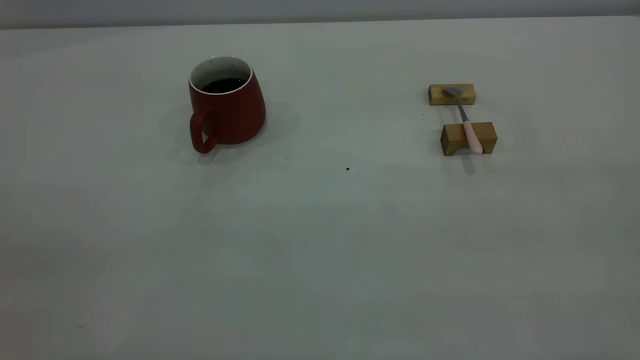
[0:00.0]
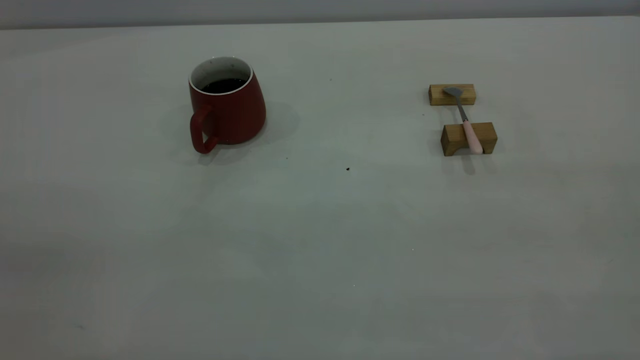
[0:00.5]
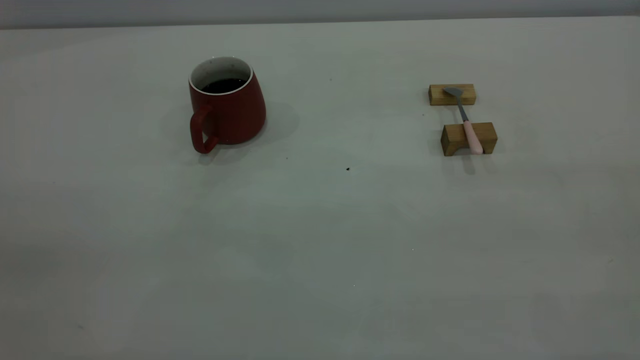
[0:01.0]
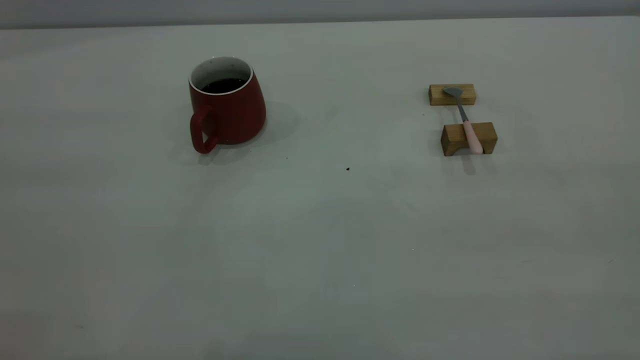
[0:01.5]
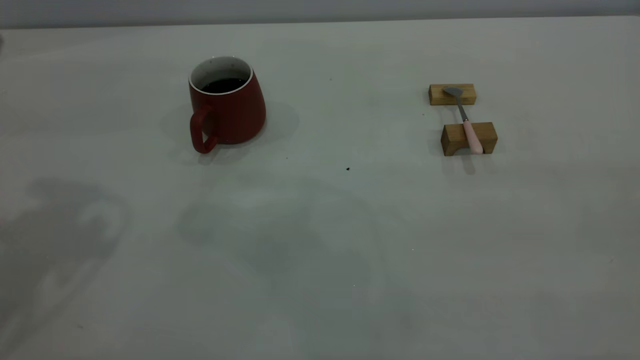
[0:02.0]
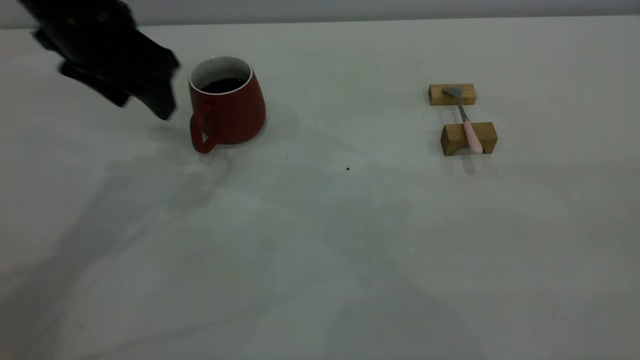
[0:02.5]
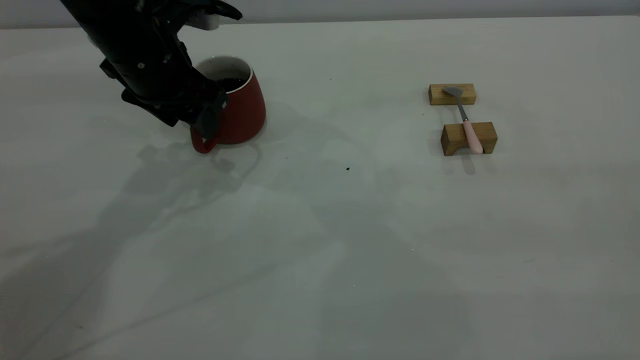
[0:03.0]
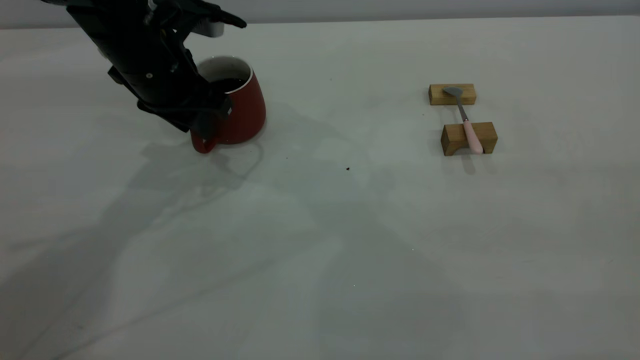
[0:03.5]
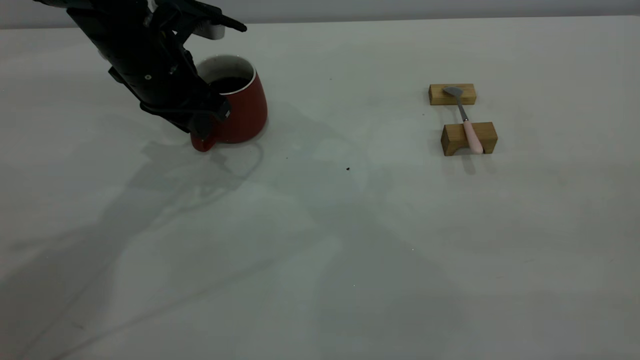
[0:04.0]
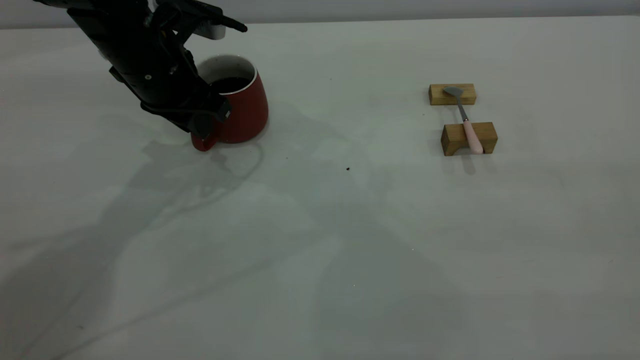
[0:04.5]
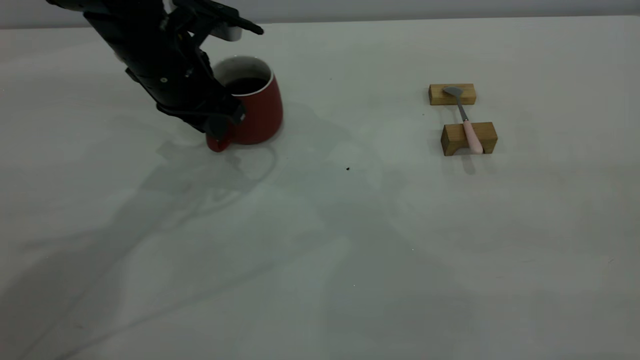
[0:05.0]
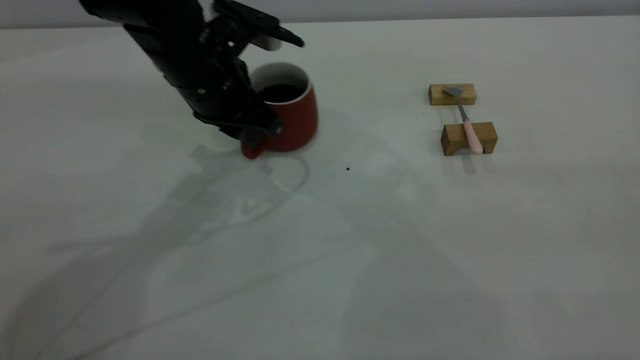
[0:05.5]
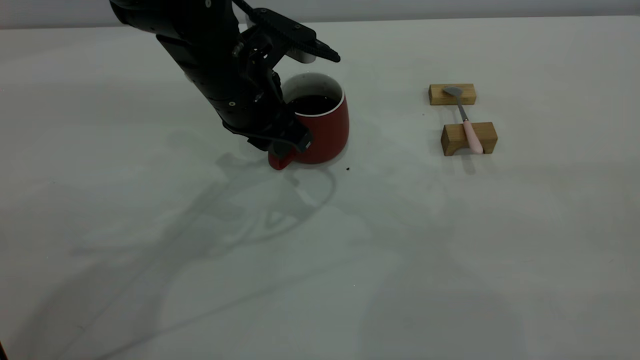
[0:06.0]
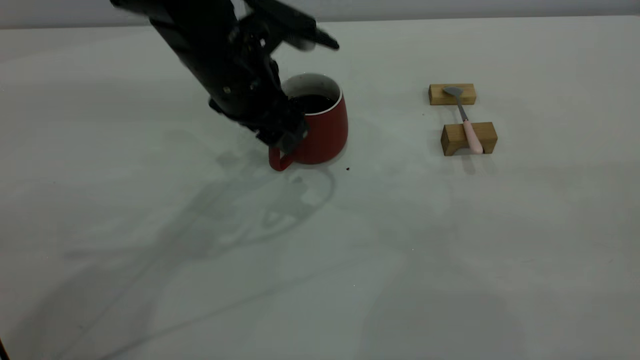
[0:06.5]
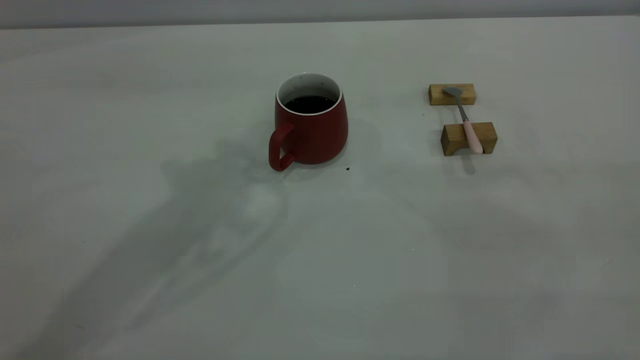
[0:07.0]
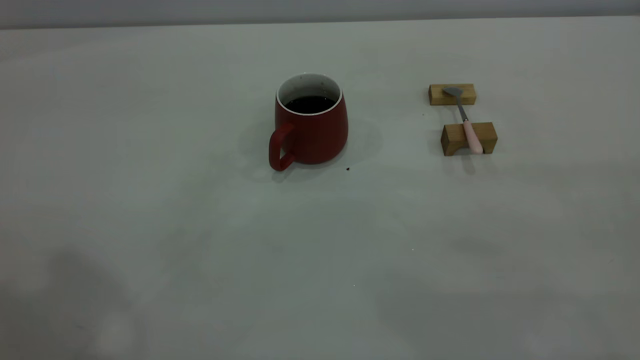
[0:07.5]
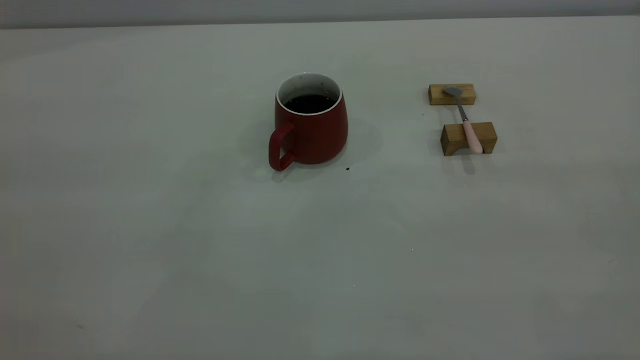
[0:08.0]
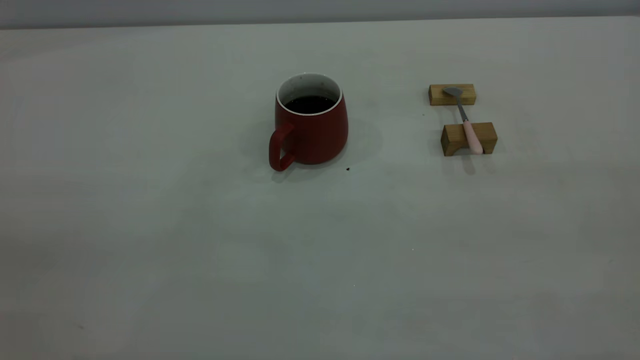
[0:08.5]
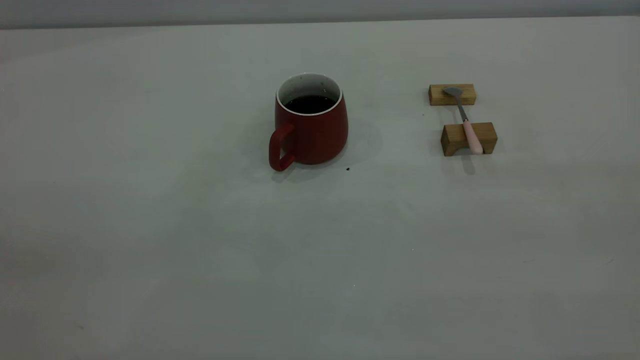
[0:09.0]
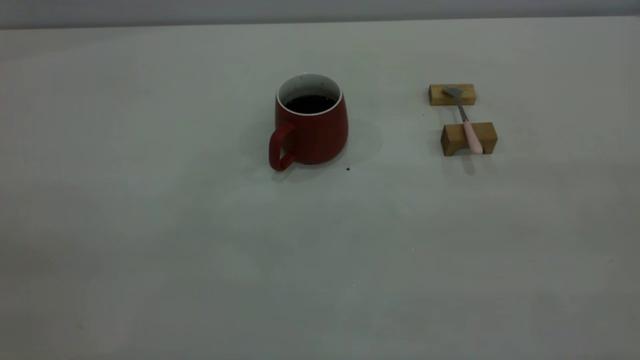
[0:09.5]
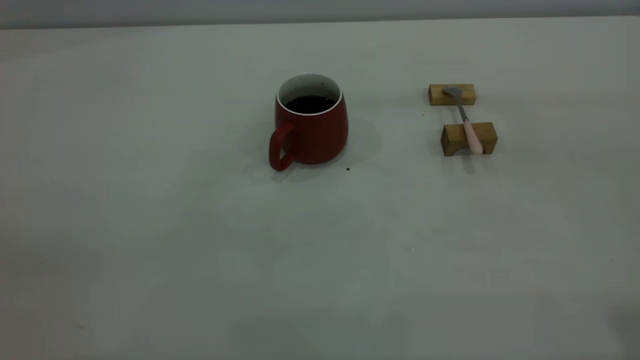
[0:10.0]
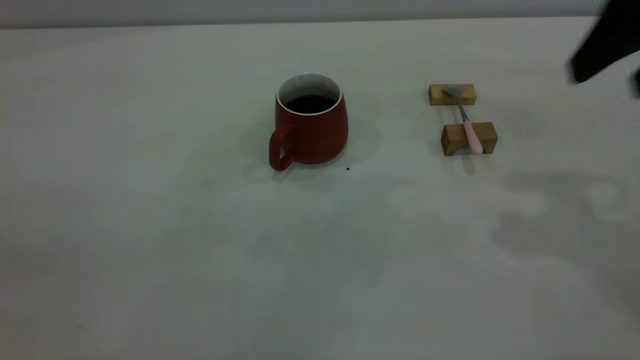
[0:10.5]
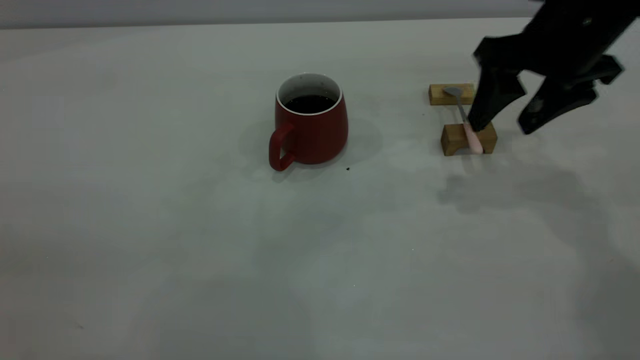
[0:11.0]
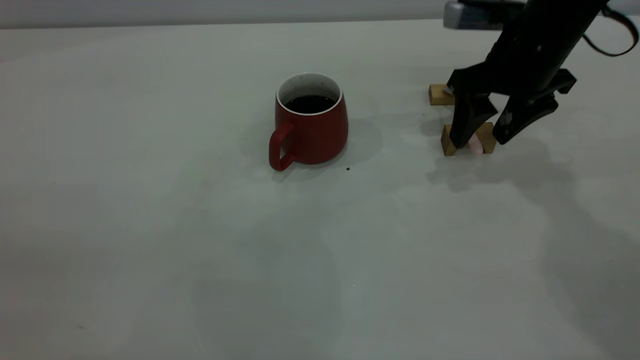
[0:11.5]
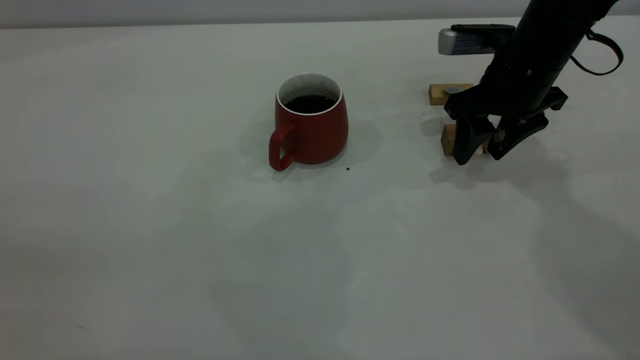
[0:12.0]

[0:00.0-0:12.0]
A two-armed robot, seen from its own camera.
Step, 0:00.0 to 0:06.5: Move the cup with coffee to the center of view.
0:02.0 to 0:04.0: The left gripper moves downward, forward and to the right, approximately 25 cm, and closes.
0:04.0 to 0:06.0: The left gripper travels to the right by about 10 cm.
0:06.0 to 0:08.0: The left gripper is displaced upward, backward and to the left by approximately 50 cm, and opens, then closes once more.
0:10.0 to 0:12.0: The right gripper travels forward and downward by about 40 cm, and opens up.

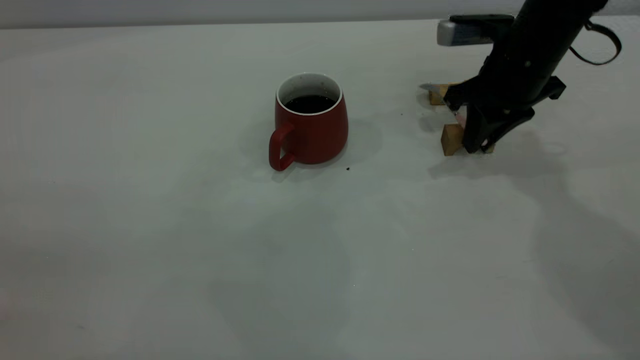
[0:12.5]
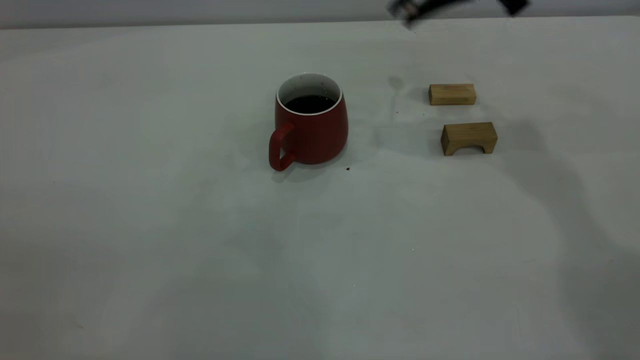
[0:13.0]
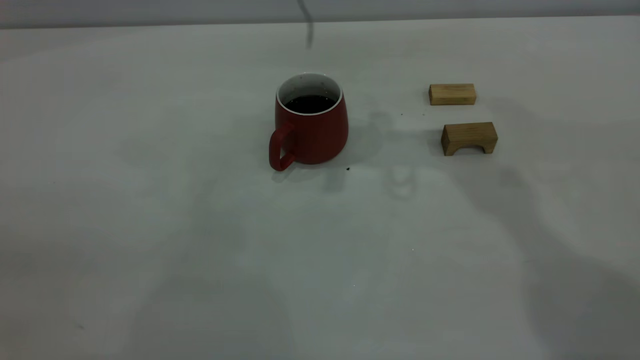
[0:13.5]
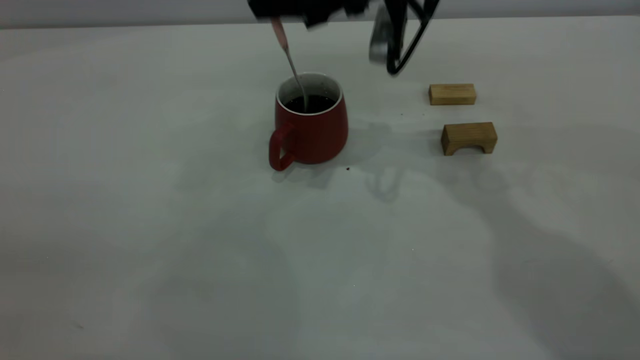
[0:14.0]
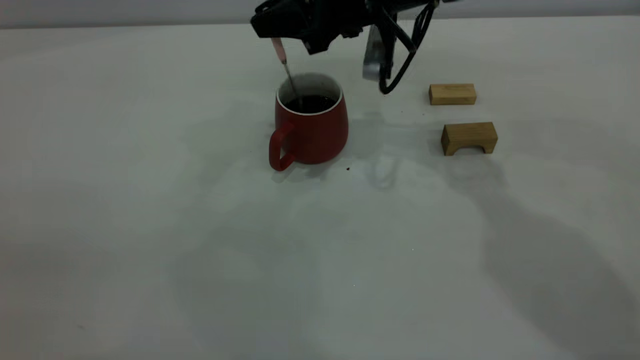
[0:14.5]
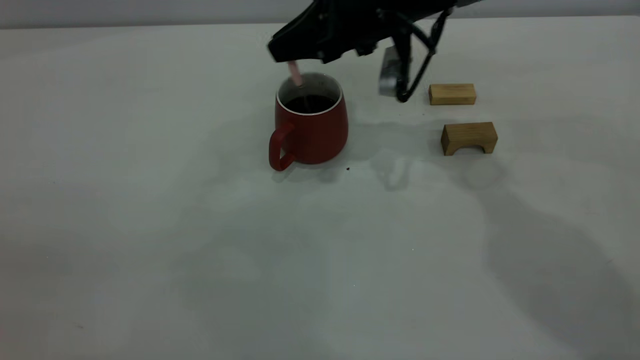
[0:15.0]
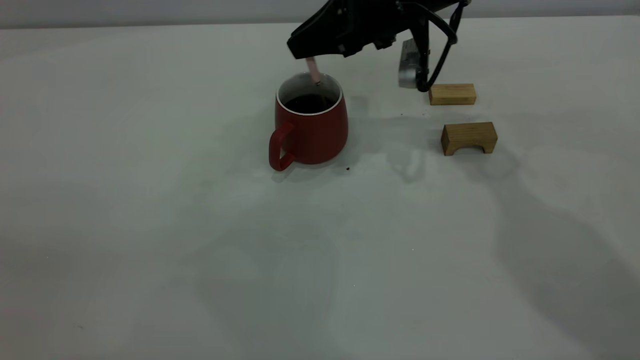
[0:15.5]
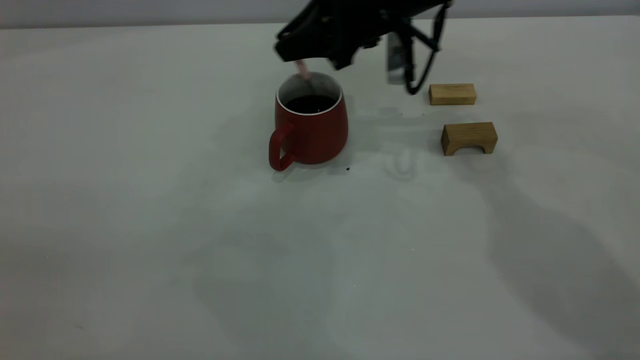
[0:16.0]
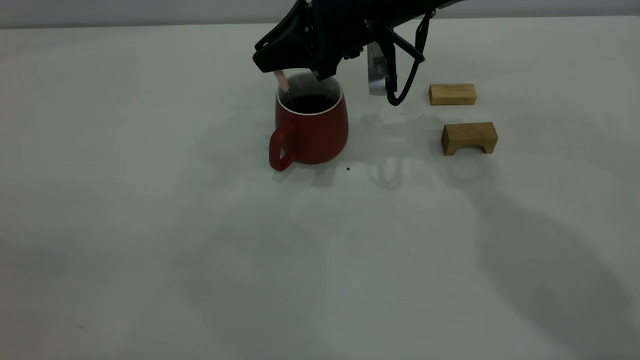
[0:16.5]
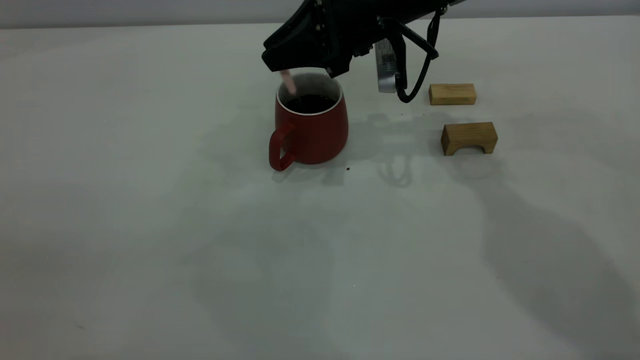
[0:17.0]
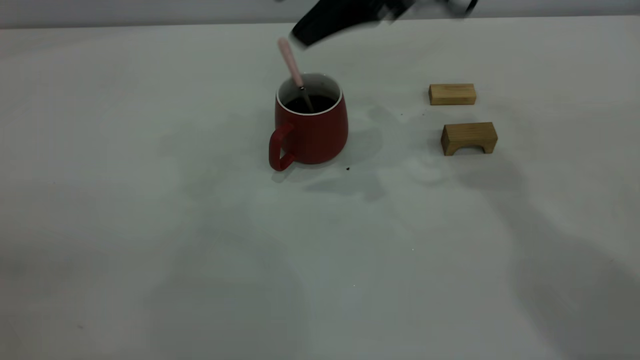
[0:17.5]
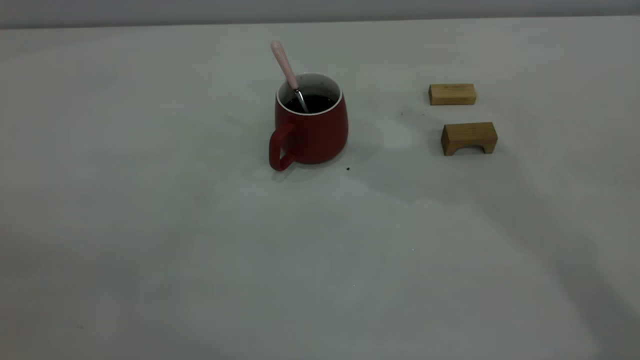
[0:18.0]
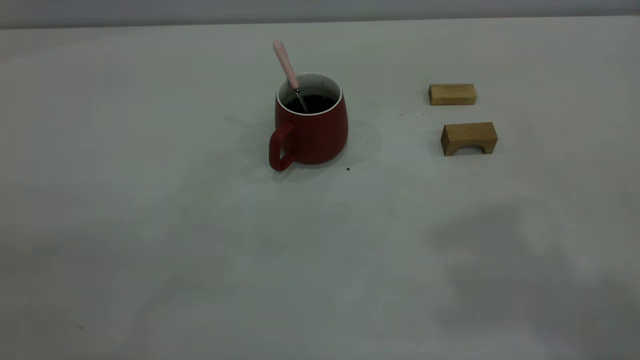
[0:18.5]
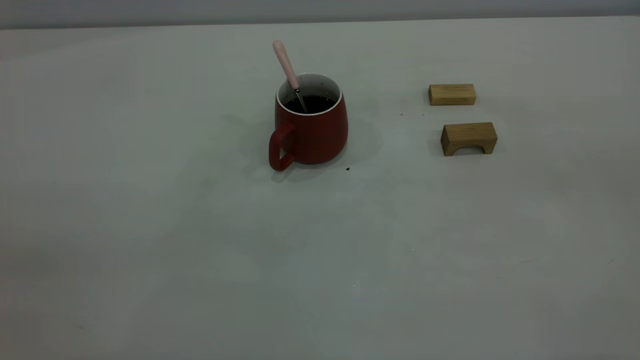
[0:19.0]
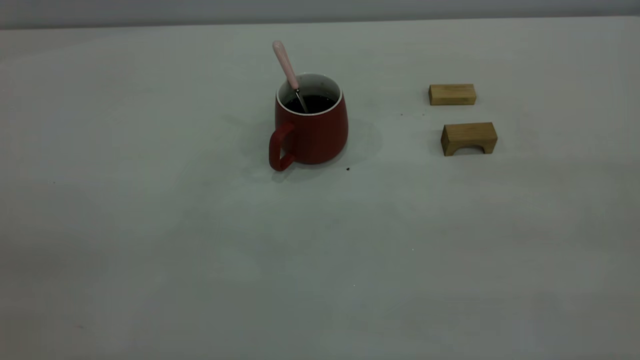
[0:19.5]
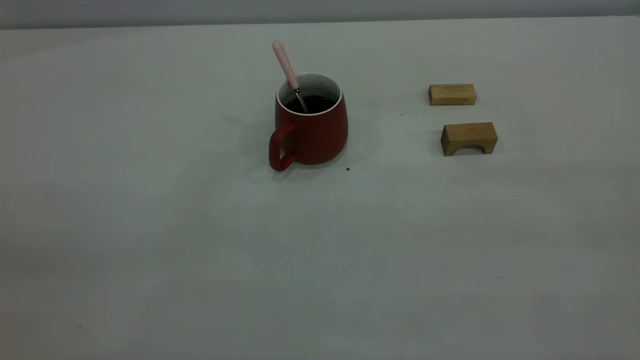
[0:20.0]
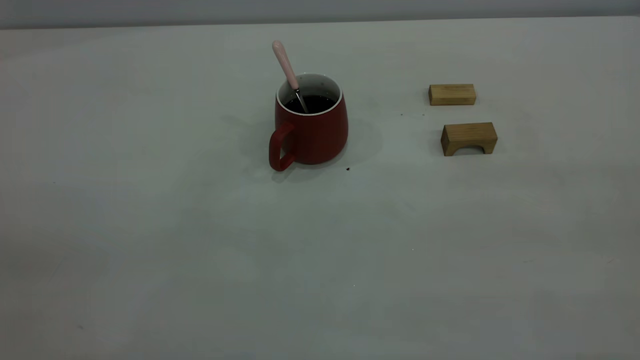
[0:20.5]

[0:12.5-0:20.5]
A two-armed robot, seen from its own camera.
Step, 0:13.0 to 0:17.0: Stir the coffee in the cup.
0:12.5 to 0:14.5: The right gripper moves to the left, roughly 15 cm, and travels upward and back again, about 15 cm each way.
0:14.5 to 0:16.5: There are only small adjustments of the grippers.
0:16.5 to 0:18.5: The right gripper moves upward, backward and to the right, some 40 cm, and opens and closes again.
